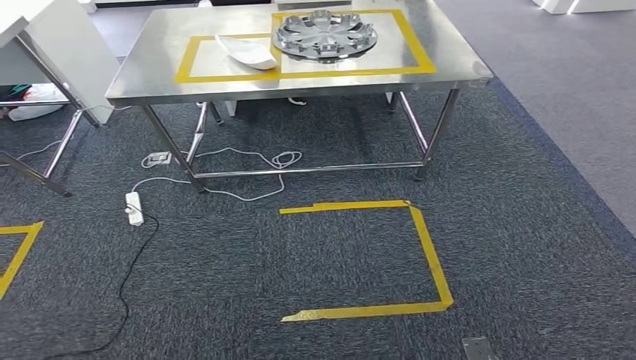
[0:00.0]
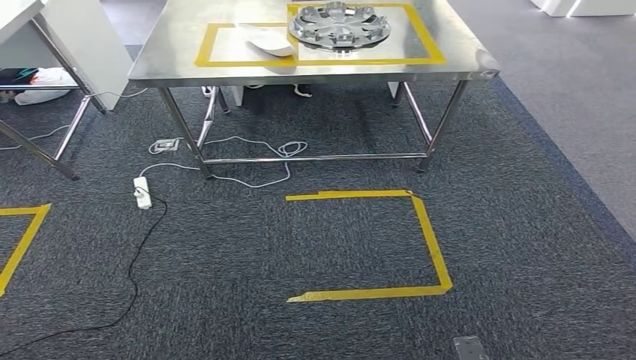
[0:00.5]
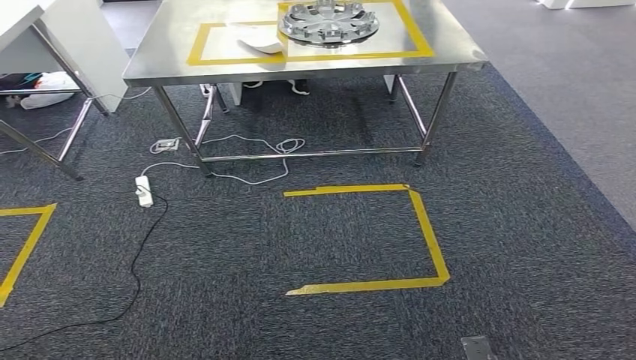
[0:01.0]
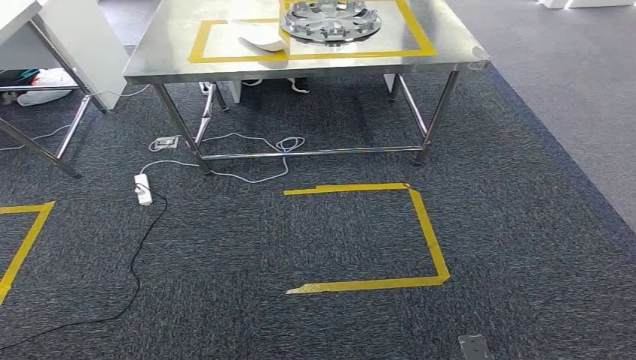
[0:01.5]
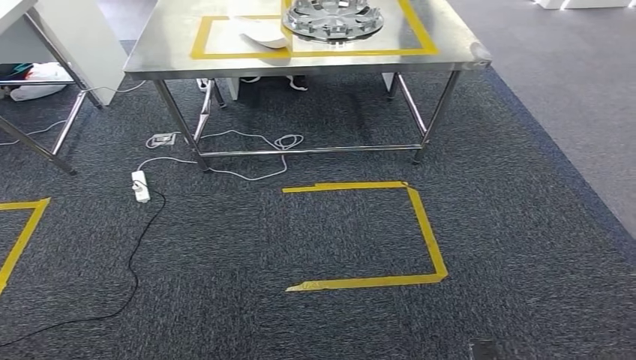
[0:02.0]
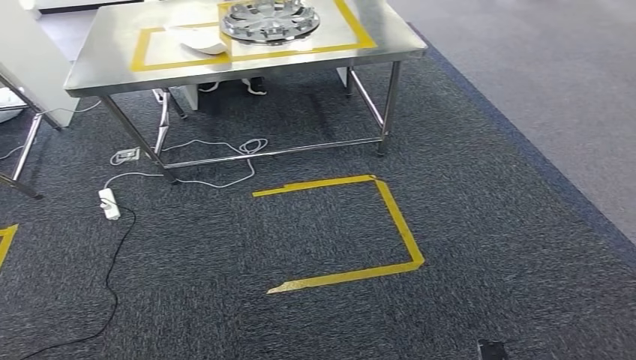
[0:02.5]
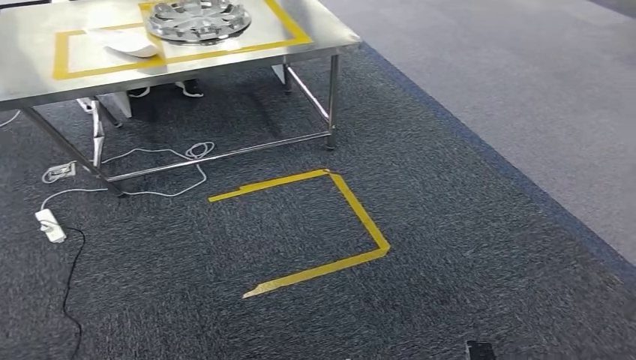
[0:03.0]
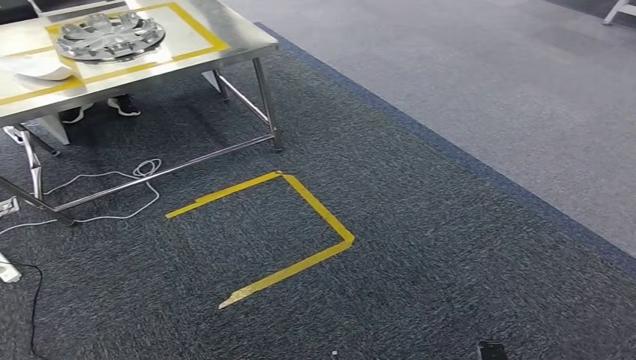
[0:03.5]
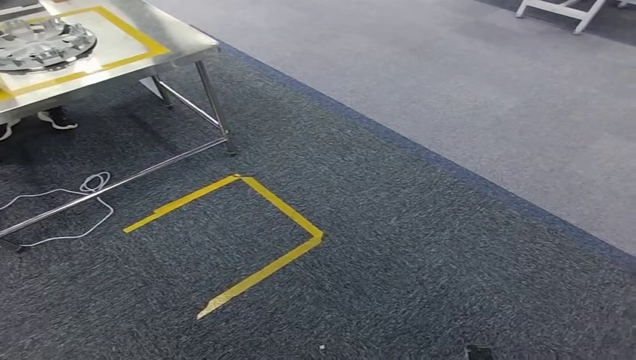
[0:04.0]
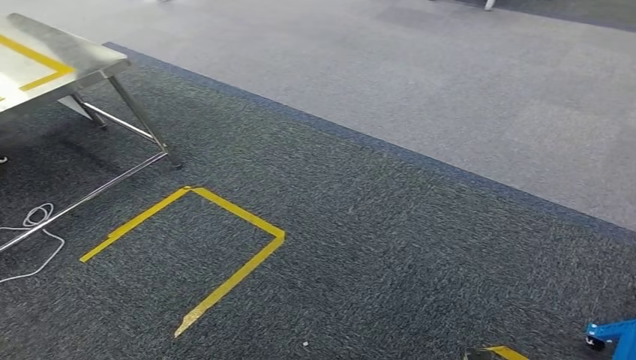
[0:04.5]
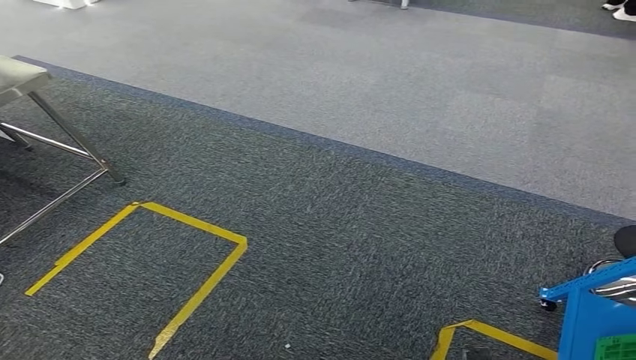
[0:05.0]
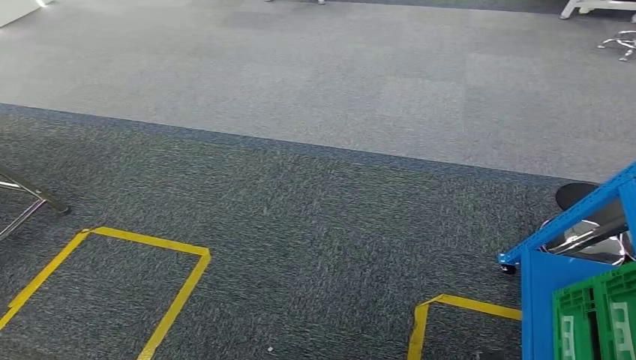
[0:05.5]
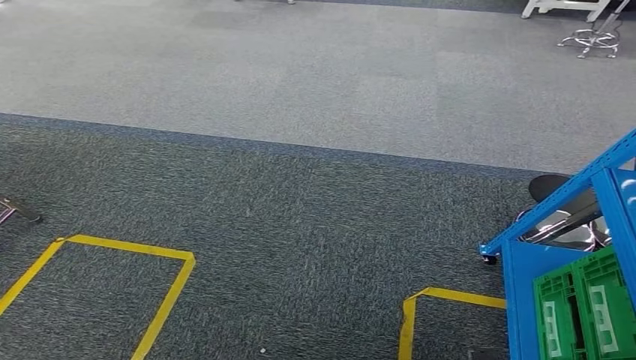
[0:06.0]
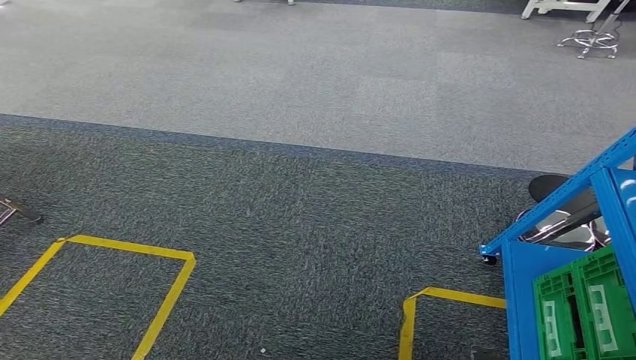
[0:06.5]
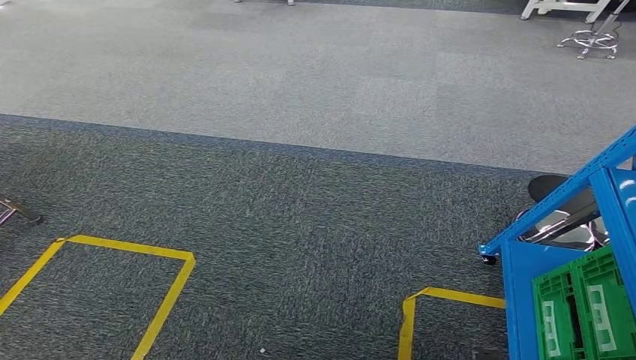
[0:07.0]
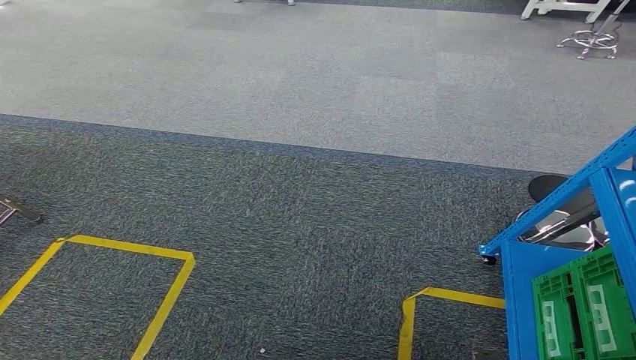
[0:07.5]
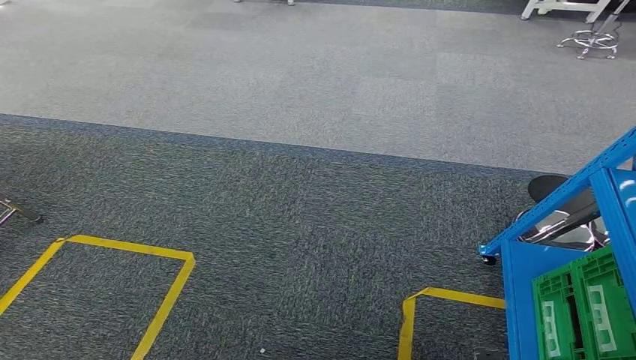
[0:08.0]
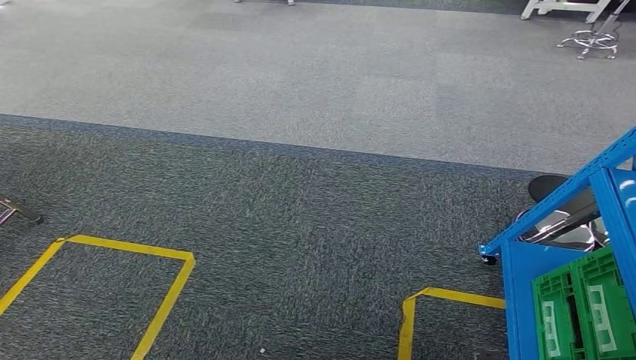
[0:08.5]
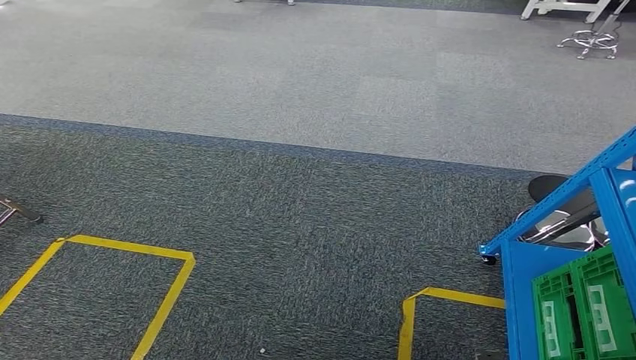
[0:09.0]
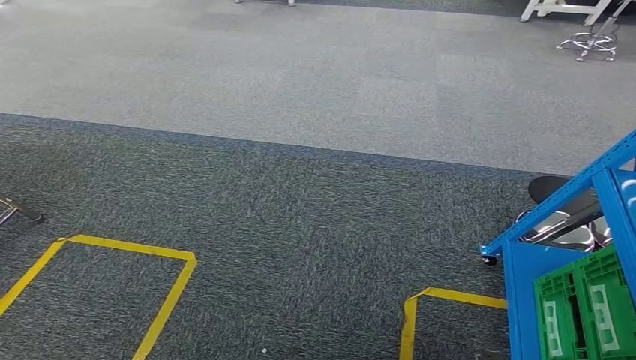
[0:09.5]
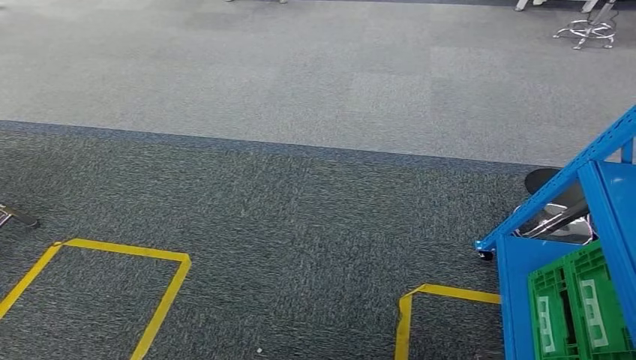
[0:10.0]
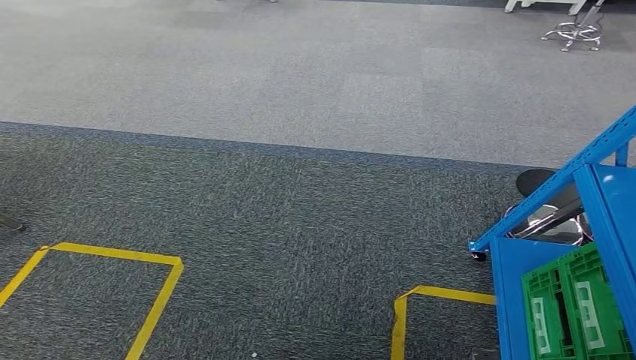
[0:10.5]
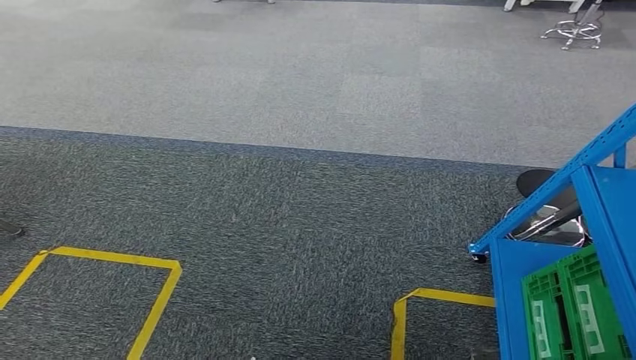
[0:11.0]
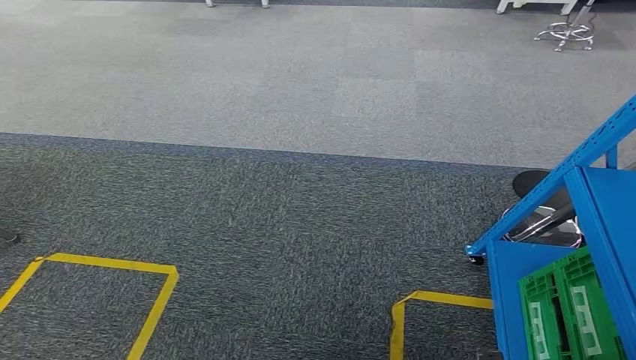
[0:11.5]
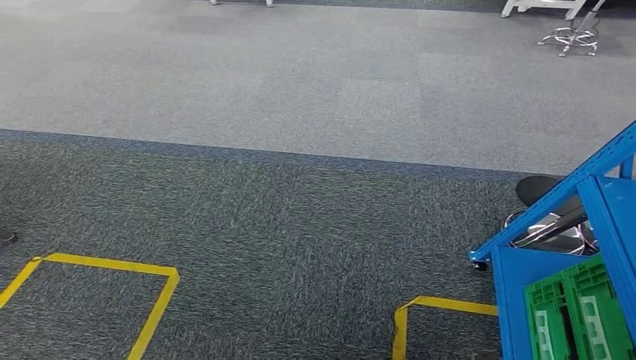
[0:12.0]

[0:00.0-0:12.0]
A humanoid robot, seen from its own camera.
0:06.0 to 0:10.0: Both hands stay about where they are.
0:10.0 to 0:12.0: Both hands stay about where they are.

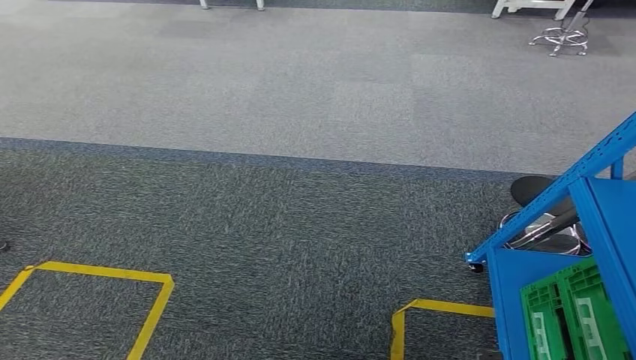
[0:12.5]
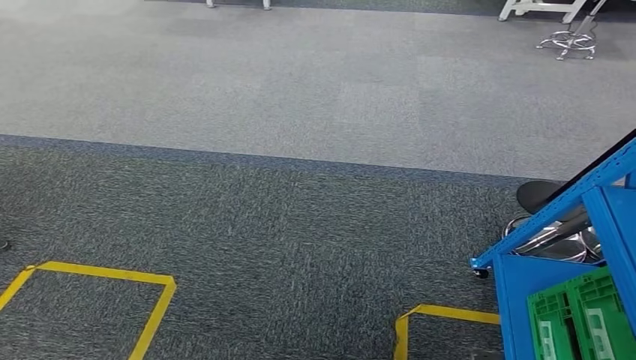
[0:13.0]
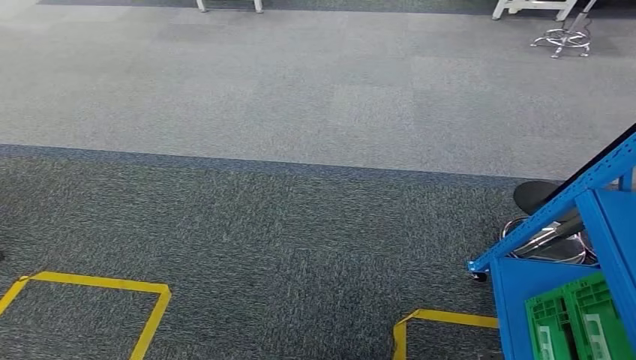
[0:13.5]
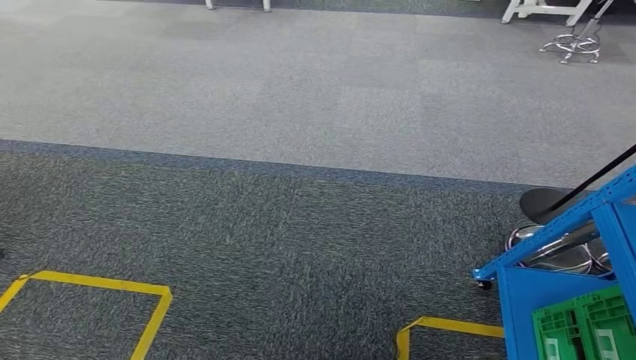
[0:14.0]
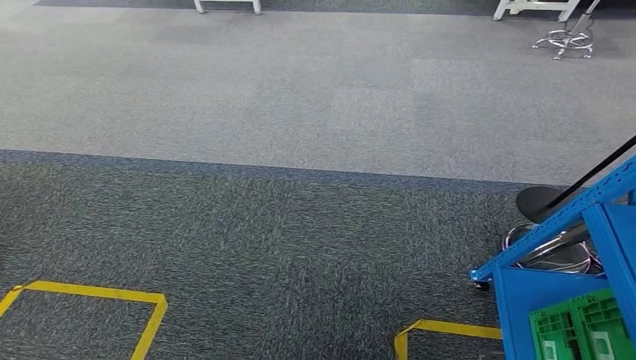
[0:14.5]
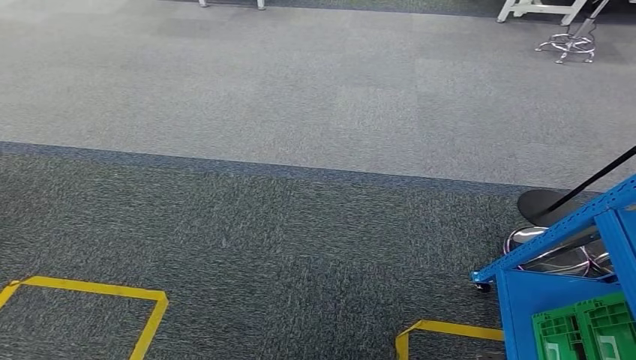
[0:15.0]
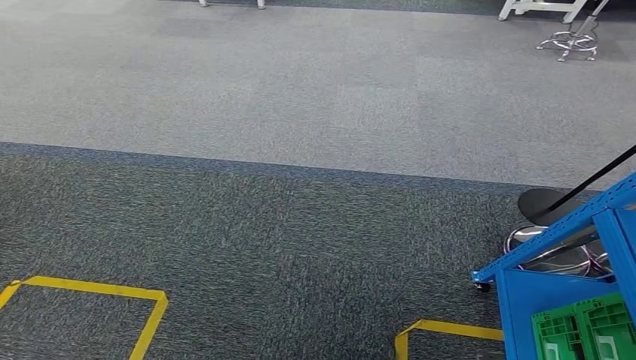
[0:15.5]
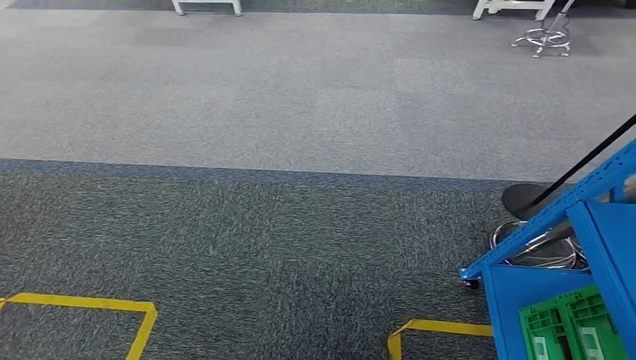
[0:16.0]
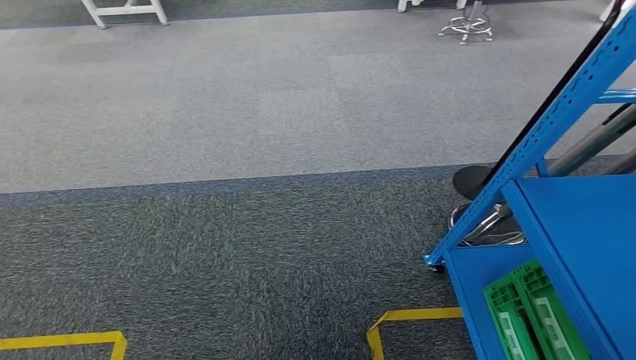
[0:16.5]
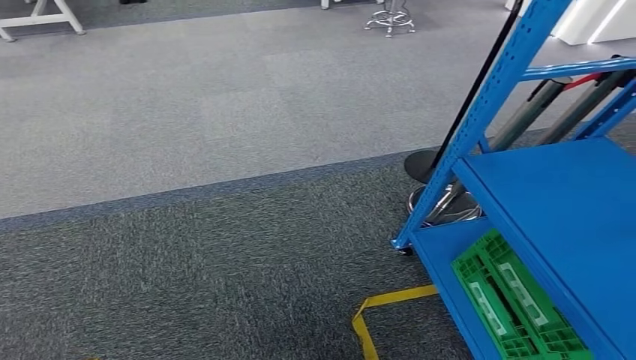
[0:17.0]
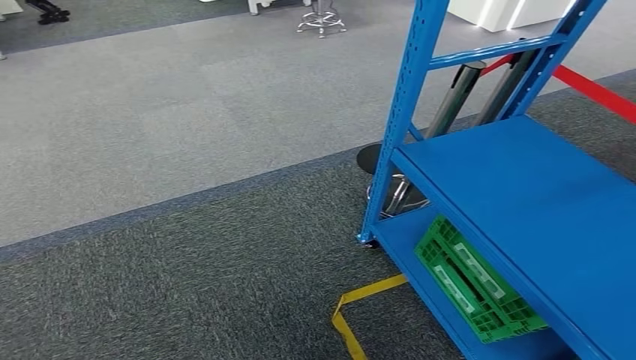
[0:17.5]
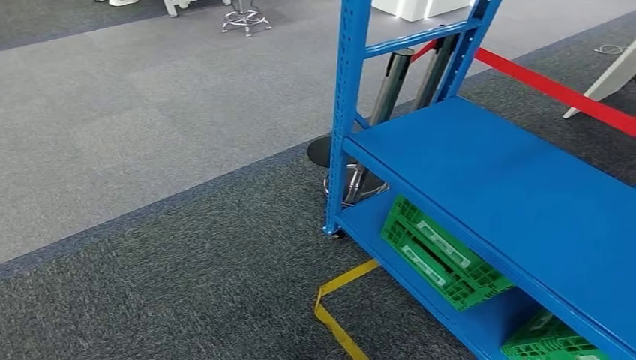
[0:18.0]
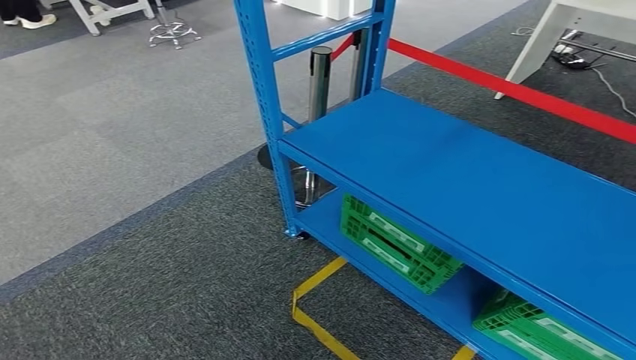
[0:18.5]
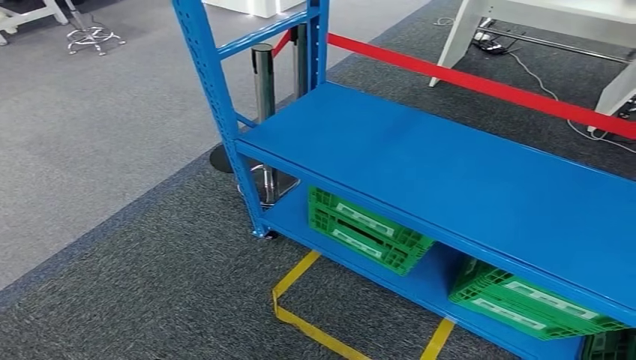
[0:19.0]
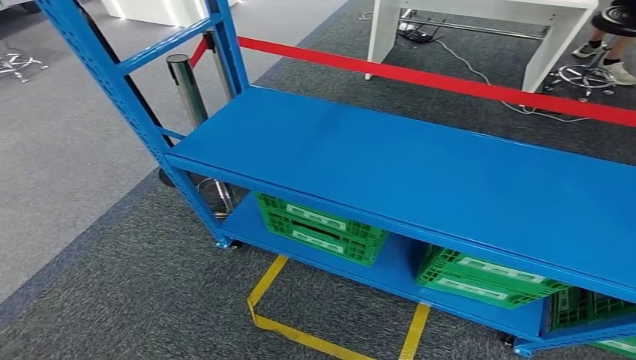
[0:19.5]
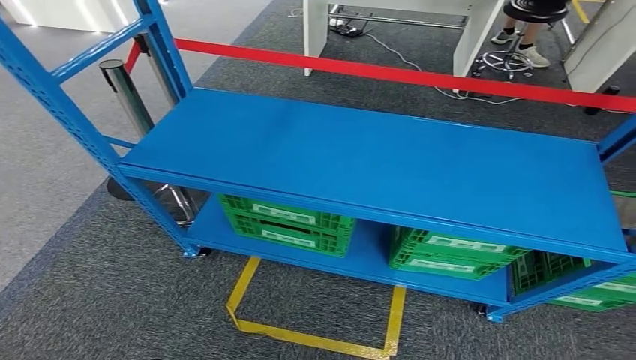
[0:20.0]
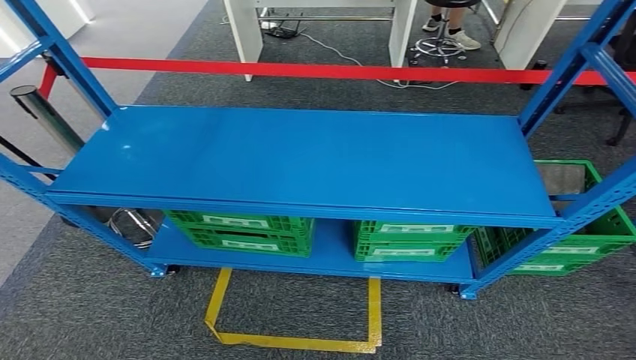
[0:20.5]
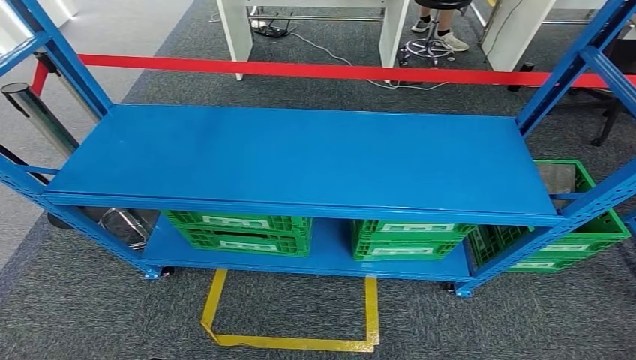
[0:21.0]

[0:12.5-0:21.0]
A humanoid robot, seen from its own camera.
Step, 0:12.5 to 0:21.0: Move to the initial position at the workbench.
0:12.5 to 0:14.5: Both hands stay about where they are.
